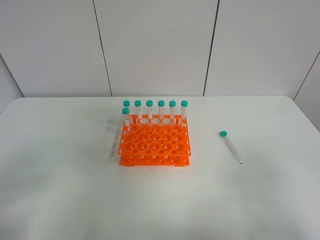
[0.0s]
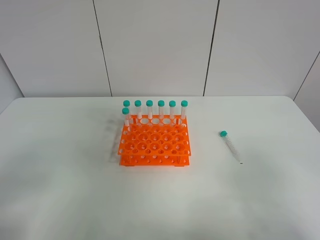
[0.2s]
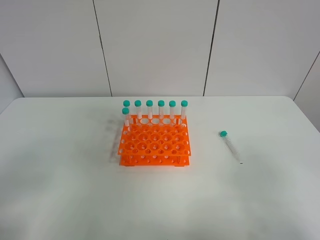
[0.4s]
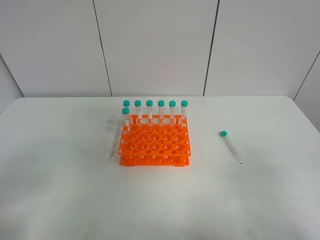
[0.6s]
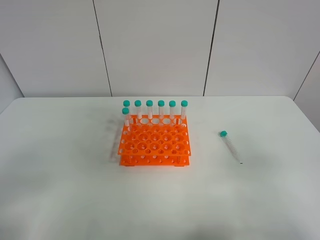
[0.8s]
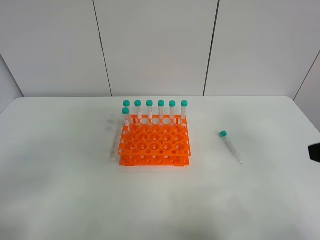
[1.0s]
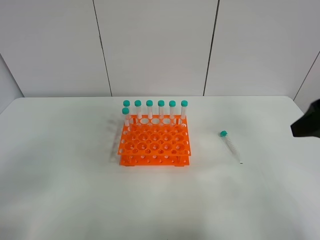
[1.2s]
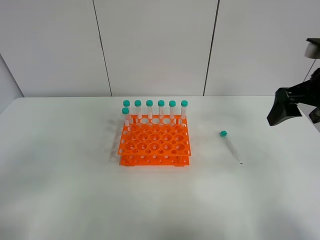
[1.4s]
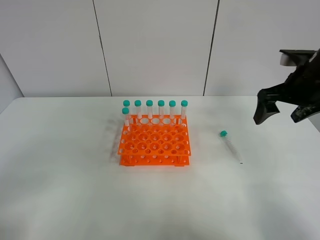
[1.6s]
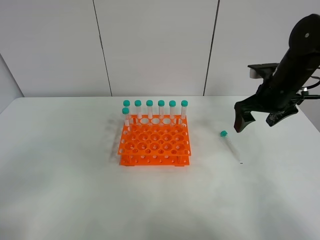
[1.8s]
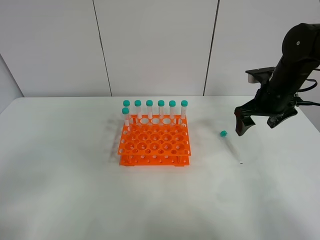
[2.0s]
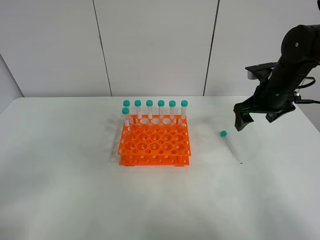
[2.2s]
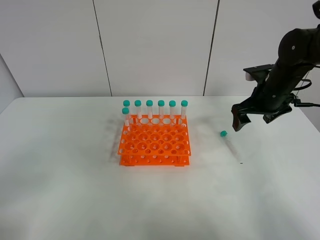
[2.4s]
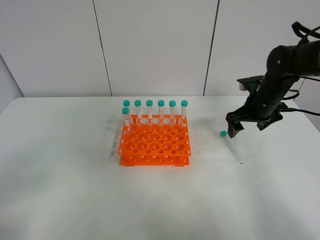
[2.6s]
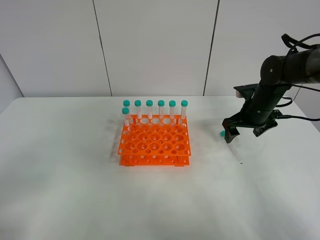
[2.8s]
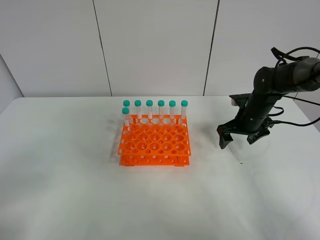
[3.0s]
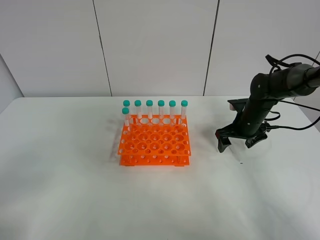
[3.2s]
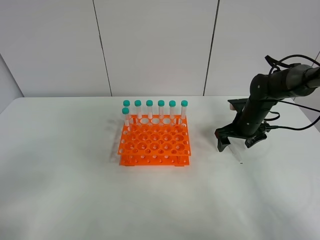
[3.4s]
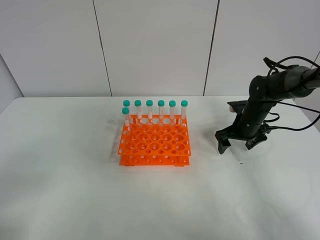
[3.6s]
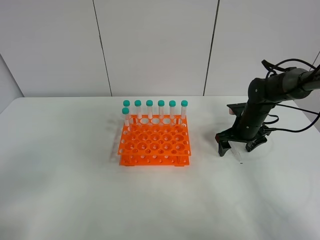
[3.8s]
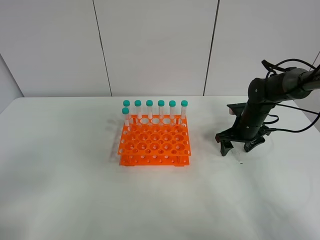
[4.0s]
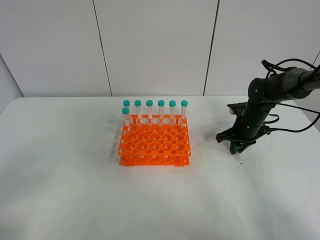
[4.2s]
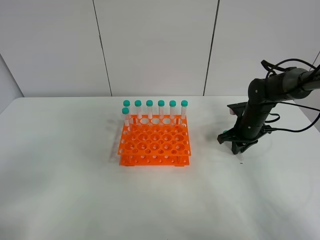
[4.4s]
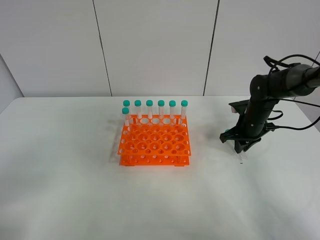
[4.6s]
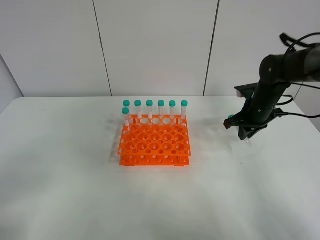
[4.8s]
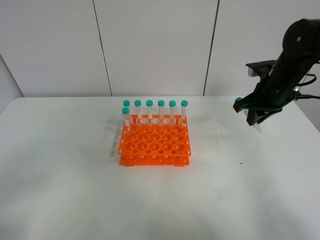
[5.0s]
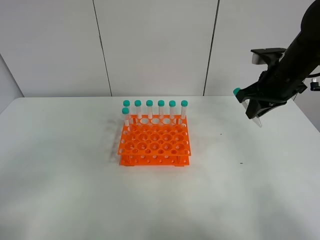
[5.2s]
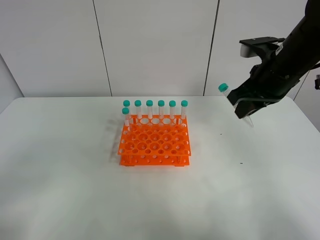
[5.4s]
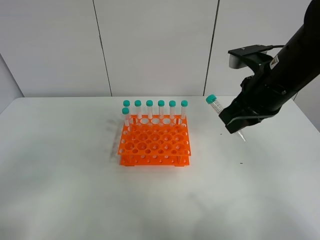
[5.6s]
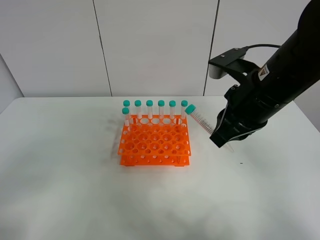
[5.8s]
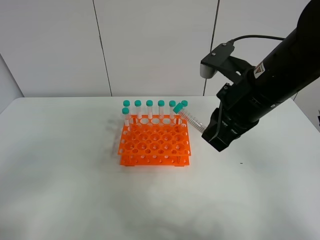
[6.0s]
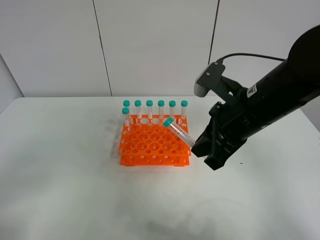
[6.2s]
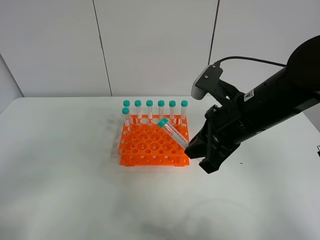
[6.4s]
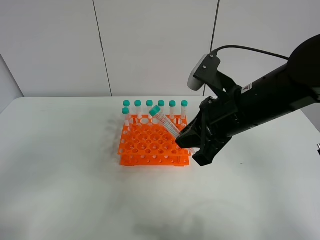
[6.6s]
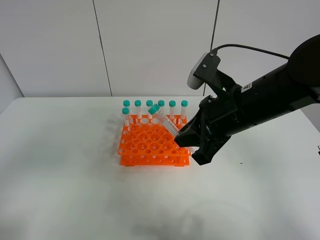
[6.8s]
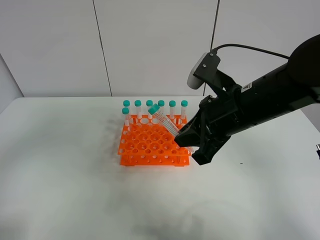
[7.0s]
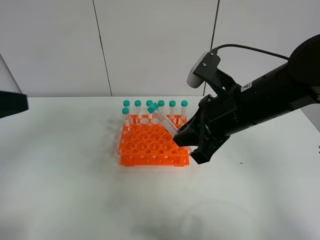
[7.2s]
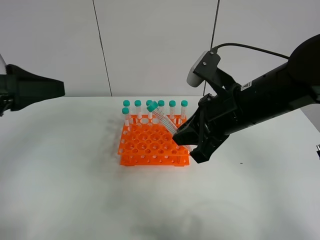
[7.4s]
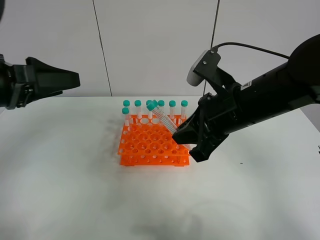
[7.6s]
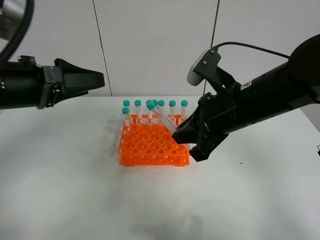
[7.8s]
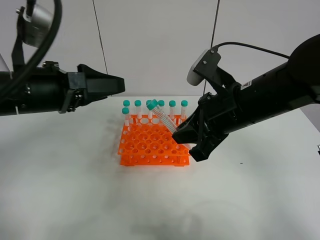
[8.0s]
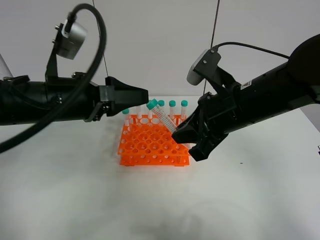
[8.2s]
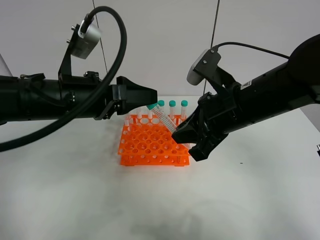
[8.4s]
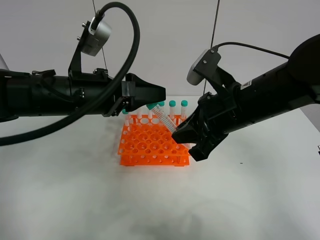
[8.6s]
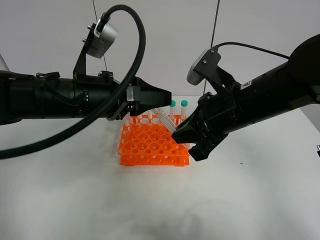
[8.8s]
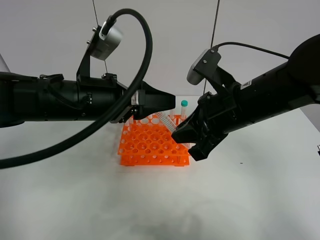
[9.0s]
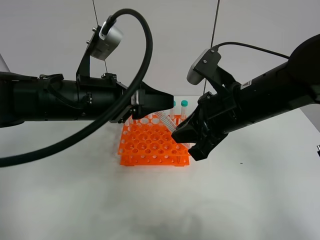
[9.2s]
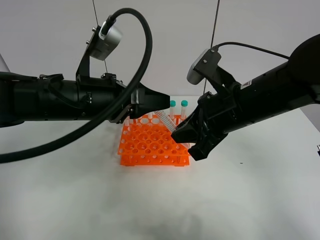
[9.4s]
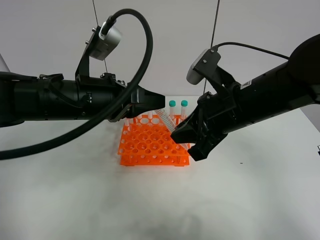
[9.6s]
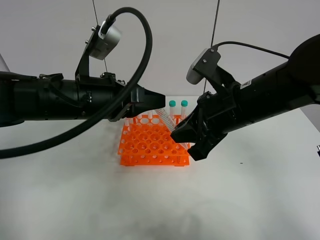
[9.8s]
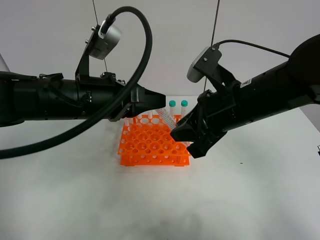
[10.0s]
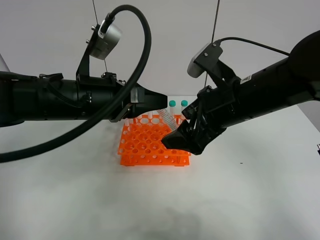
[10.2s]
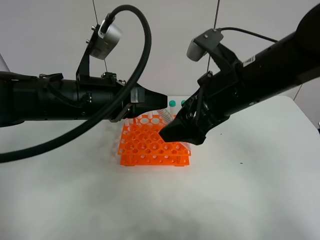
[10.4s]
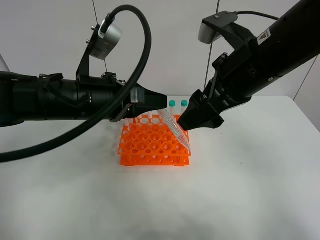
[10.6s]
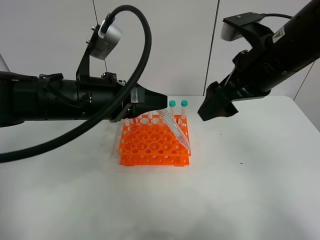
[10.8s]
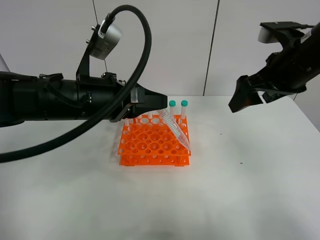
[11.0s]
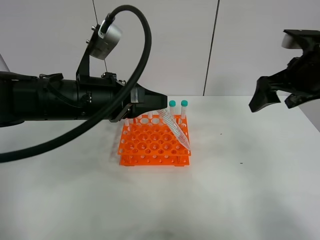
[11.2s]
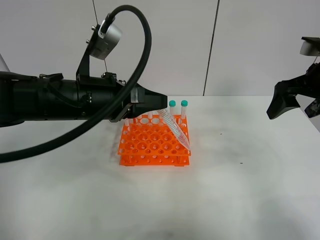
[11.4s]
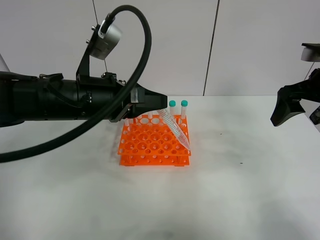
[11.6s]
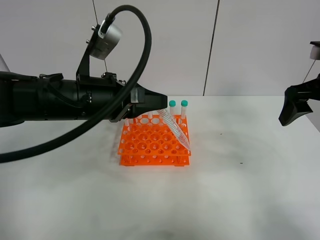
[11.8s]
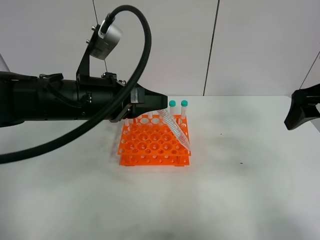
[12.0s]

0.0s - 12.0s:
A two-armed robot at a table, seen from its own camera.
Task of the whole recording: Put the test tube on the table back onto the test tube rack.
Step, 0.0s - 4.2s: Pick up the test tube with the right gripper.
Step, 4.4s - 10.4s: Move the test tube from the right gripper to the left gripper.
0.0s - 1.6s: The right gripper moves forward, roughly 35 cm.
1.6s - 3.0s: The right gripper shifts about 15 cm downward and forward.
3.0s - 4.4s: The right gripper closes.
4.4s - 6.0s: The right gripper is displaced upward, backward and to the left by approximately 30 cm.
6.0s - 7.6s: The left gripper moves forward, approximately 20 cm.
7.6s - 9.0s: The left gripper shifts approximately 15 cm to the right.
9.0s - 10.4s: The right gripper opens its fingers, while the left gripper closes.
10.4s - 12.0s: The right gripper heads to the right, covering some 20 cm.

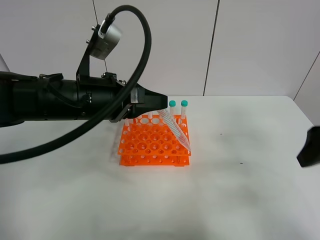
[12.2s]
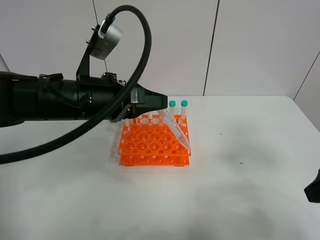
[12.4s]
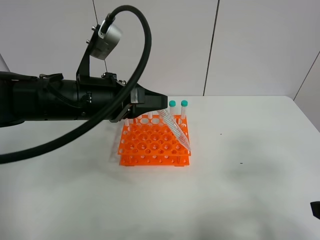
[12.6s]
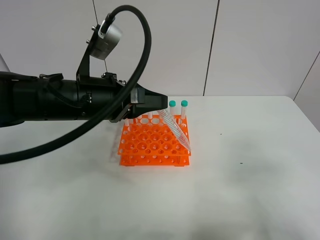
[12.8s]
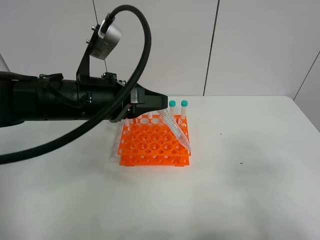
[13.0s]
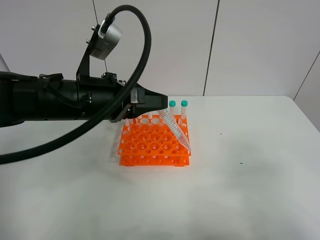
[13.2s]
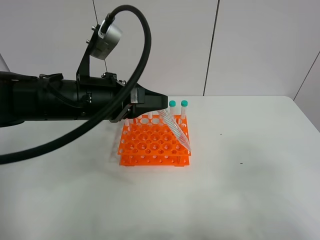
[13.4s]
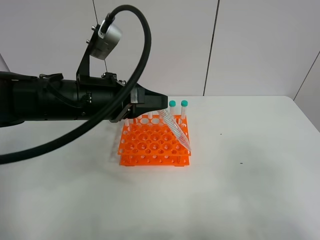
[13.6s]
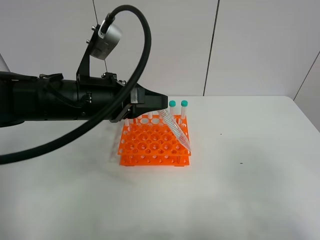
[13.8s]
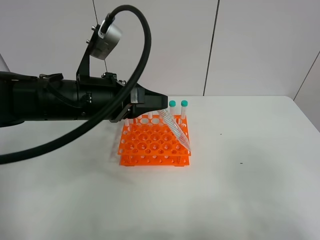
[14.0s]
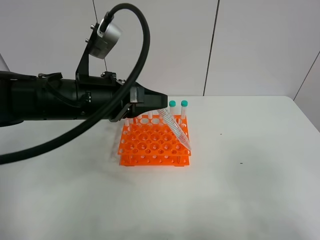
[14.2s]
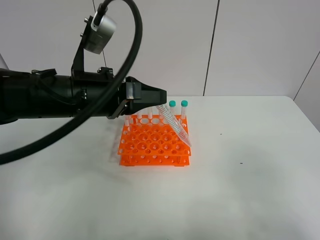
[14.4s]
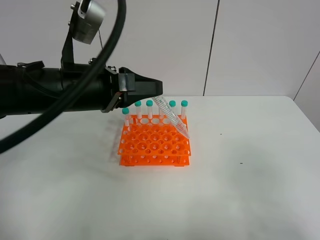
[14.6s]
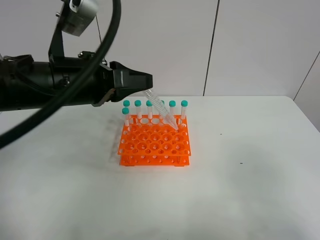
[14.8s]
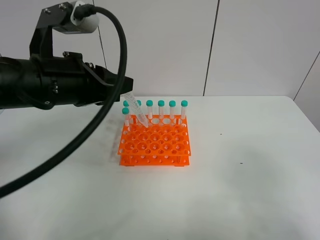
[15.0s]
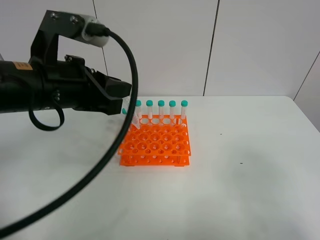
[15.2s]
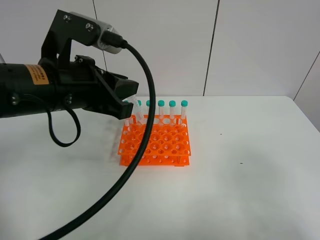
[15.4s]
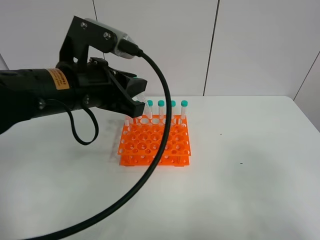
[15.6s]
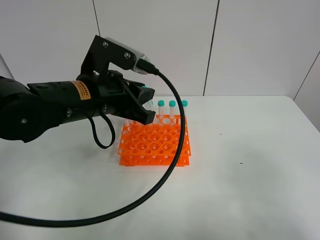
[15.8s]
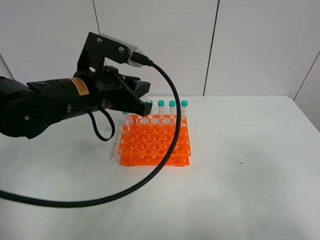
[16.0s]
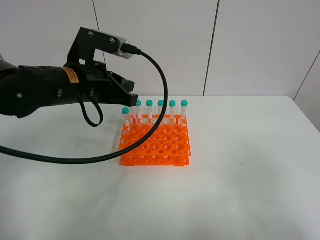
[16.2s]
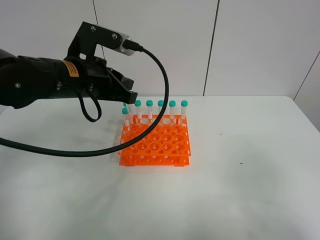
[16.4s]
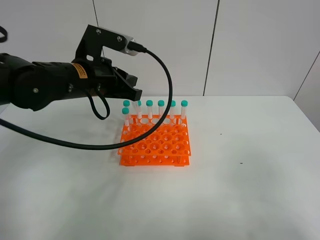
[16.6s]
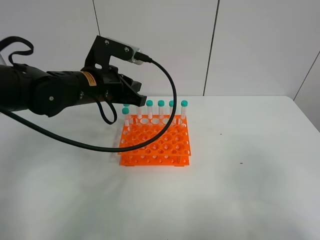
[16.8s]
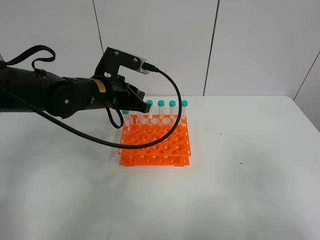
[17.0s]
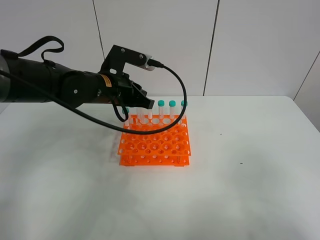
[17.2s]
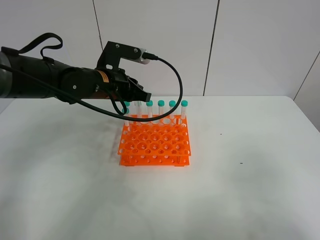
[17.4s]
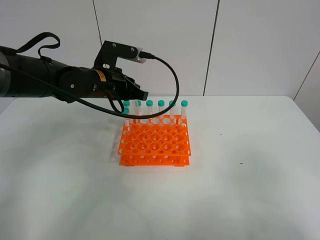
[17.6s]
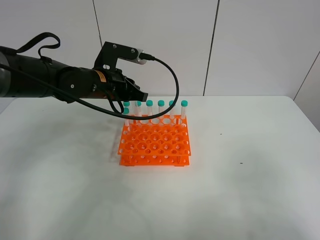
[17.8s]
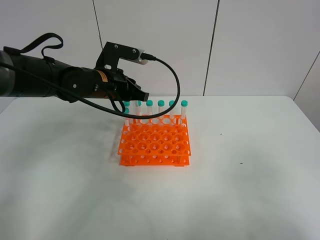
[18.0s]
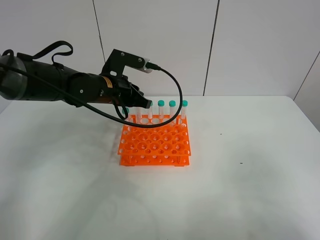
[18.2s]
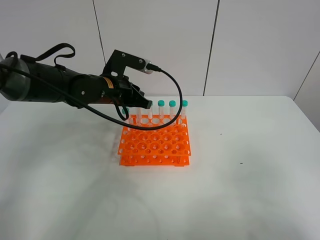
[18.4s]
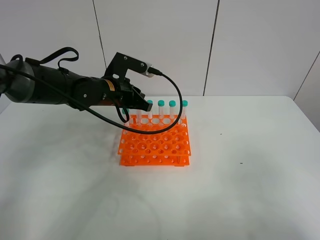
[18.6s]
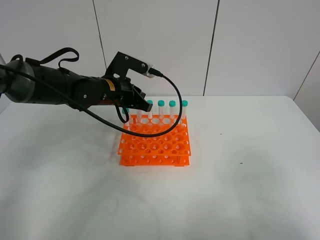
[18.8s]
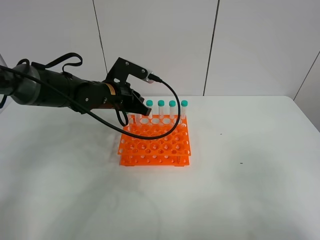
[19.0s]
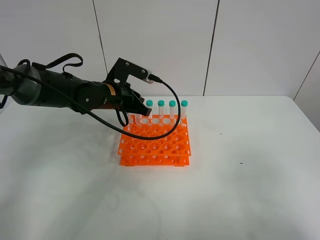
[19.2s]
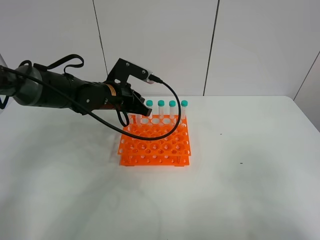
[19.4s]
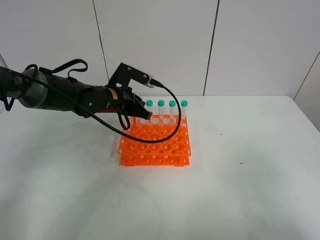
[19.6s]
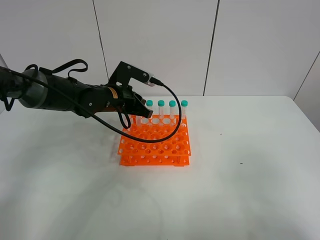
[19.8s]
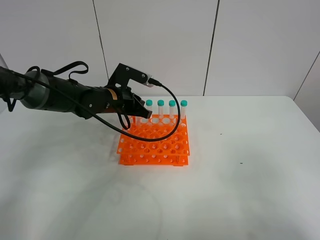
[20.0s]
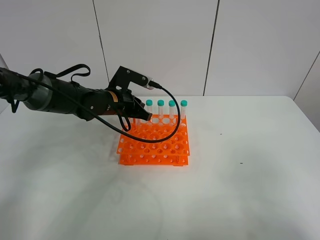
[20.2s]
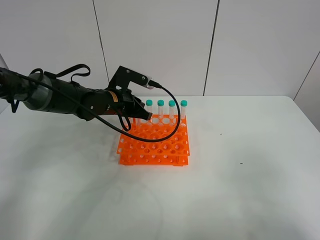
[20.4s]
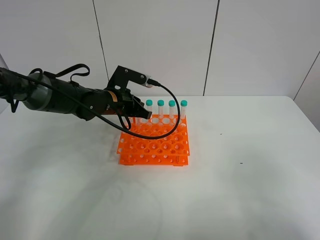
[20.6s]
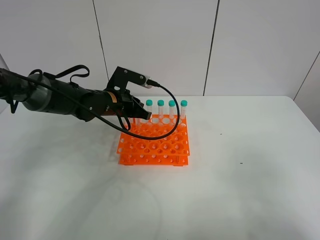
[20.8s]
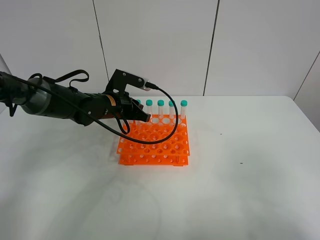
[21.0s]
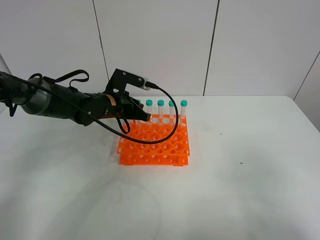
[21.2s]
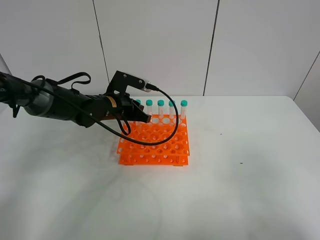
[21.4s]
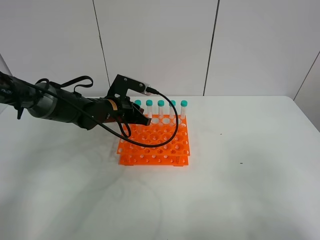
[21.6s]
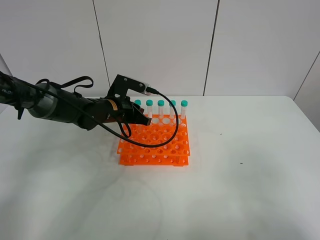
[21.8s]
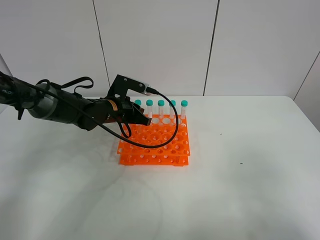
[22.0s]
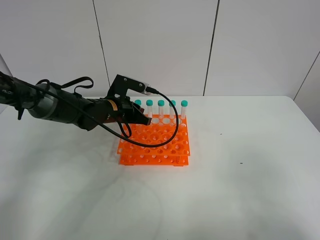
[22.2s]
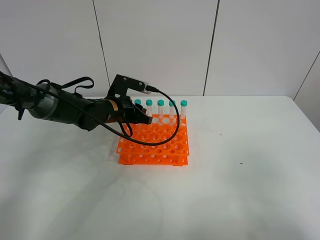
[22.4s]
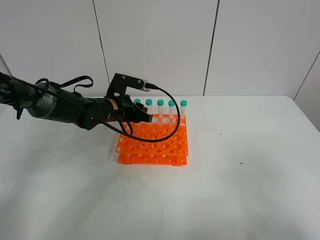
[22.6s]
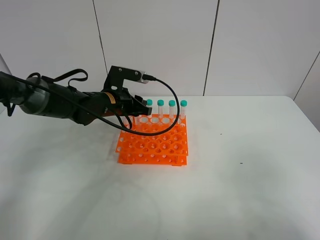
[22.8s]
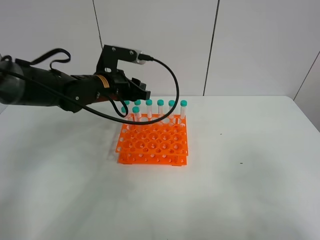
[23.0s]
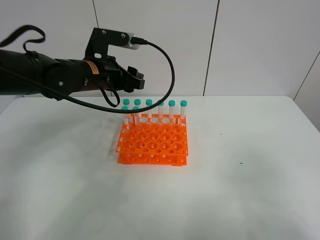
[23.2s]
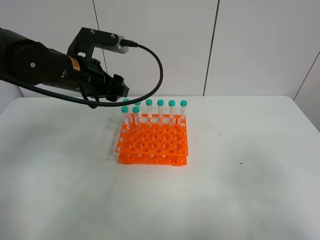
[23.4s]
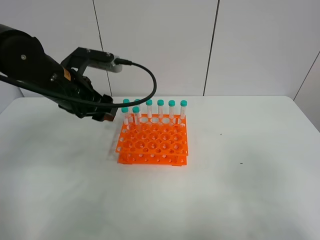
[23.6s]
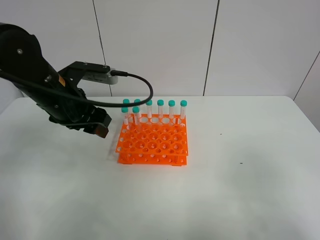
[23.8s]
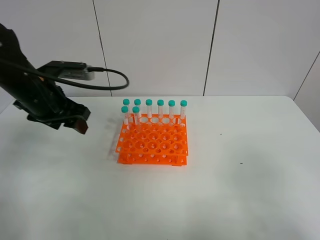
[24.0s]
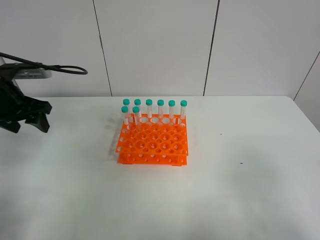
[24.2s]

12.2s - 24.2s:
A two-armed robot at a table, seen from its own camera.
Task of the whole recording: Put the test tube on the table back onto the test tube rack.
Step, 12.2s - 22.6s: Place the test tube on the test tube rack with the left gripper.
12.2s - 13.8s: The right gripper travels backward by some 15 cm.
13.8s - 15.2s: The left gripper moves upward, approximately 5 cm.
15.2s - 16.6s: The left gripper travels forward by some 10 cm.
16.6s - 18.2s: The left gripper is displaced forward and downward by approximately 10 cm.
18.2s - 21.2s: The grippers make only small movements.
21.2s - 22.6s: The left gripper opens.
22.6s - 24.2s: The left gripper shifts roughly 20 cm to the left and upward, and opens up.
